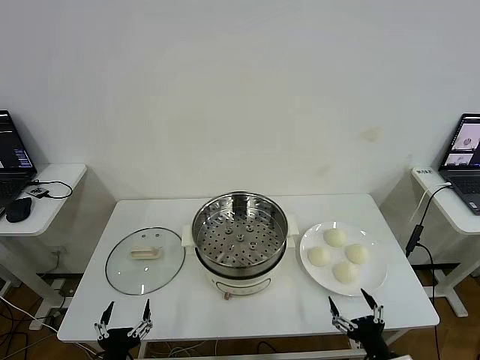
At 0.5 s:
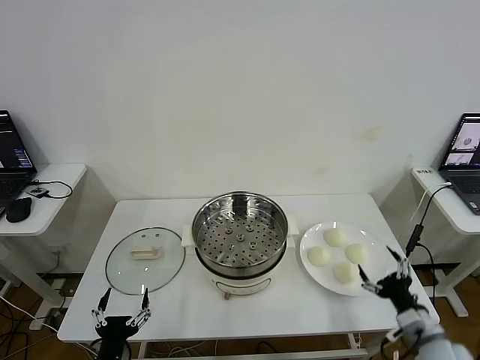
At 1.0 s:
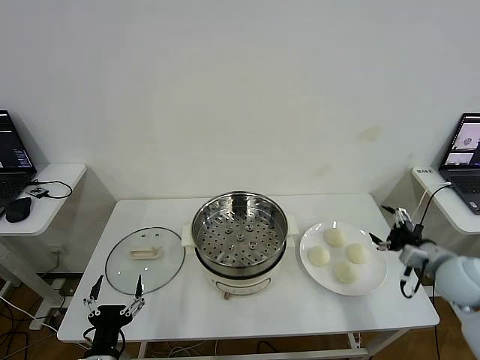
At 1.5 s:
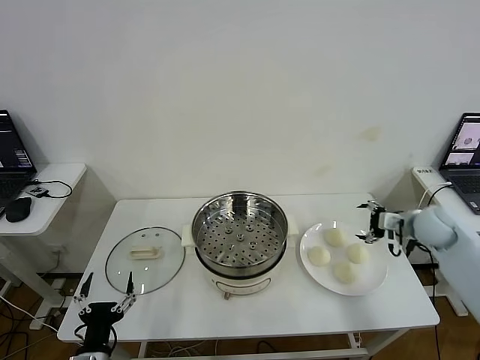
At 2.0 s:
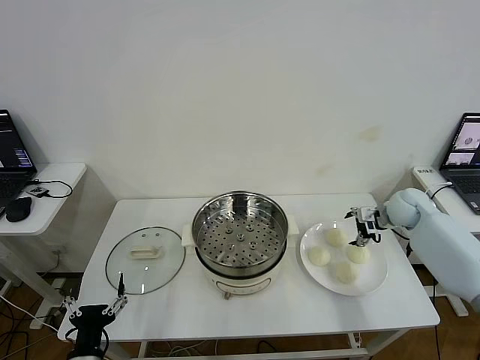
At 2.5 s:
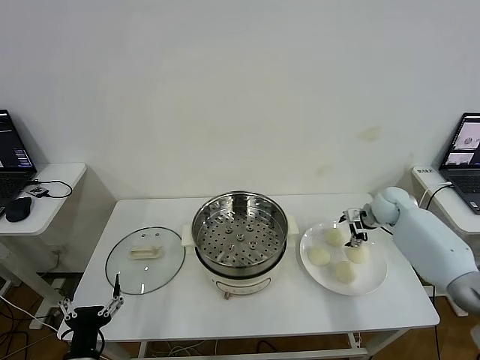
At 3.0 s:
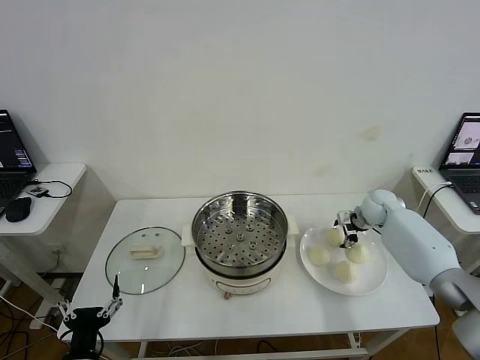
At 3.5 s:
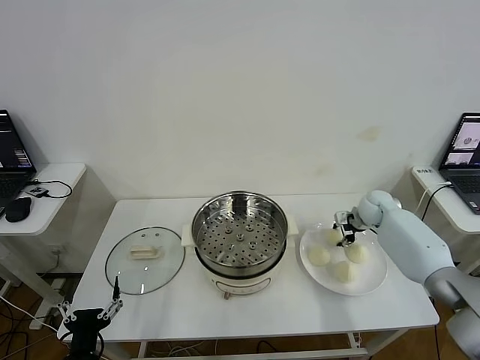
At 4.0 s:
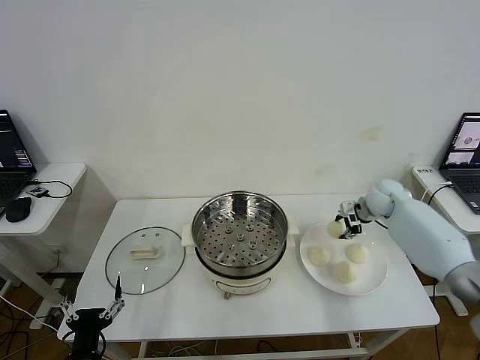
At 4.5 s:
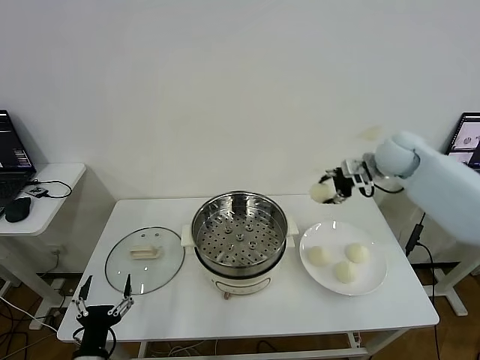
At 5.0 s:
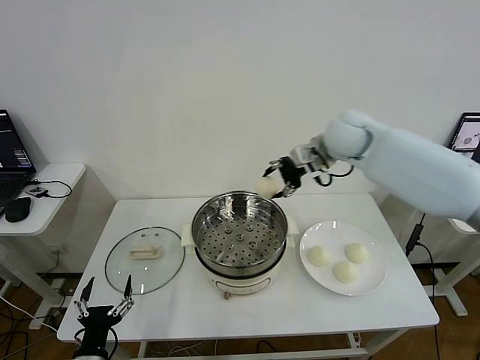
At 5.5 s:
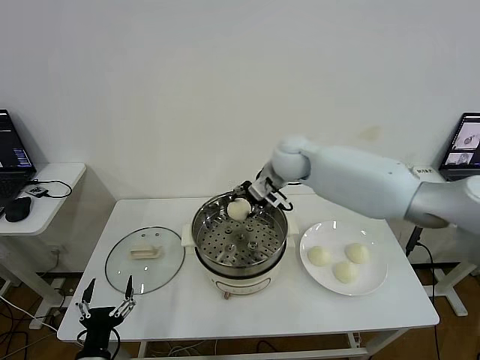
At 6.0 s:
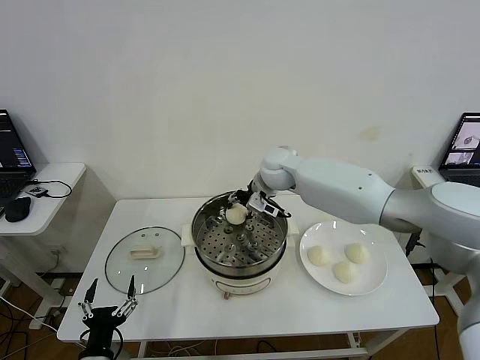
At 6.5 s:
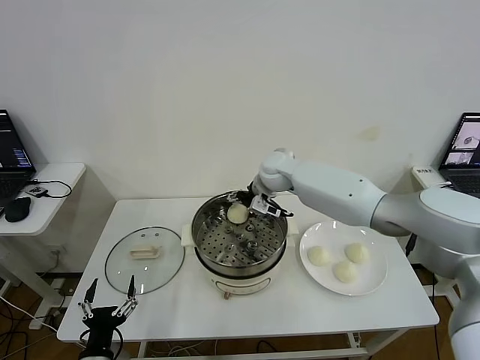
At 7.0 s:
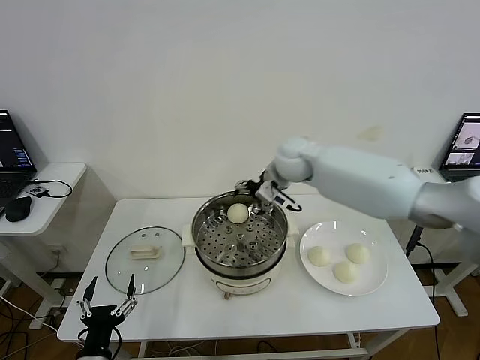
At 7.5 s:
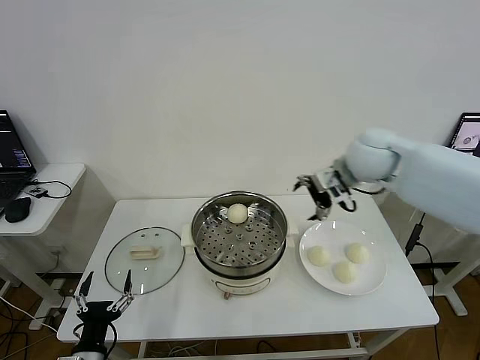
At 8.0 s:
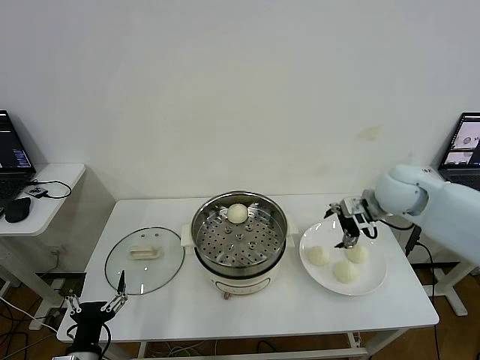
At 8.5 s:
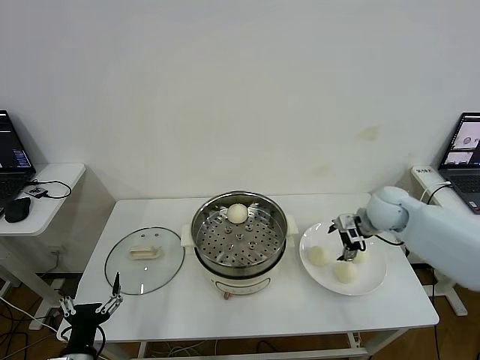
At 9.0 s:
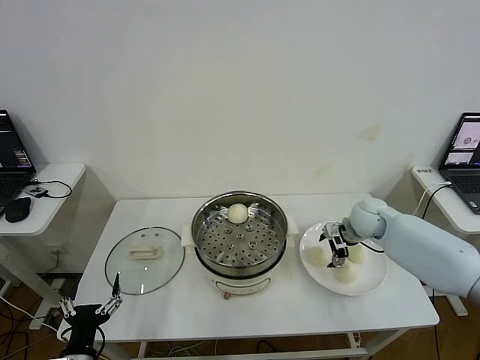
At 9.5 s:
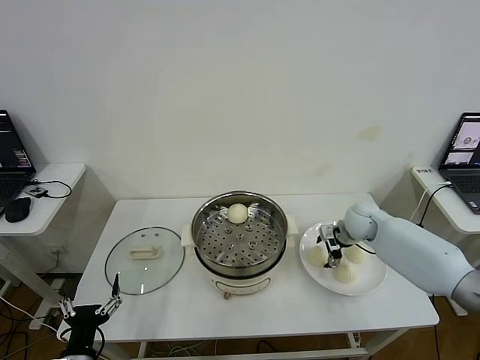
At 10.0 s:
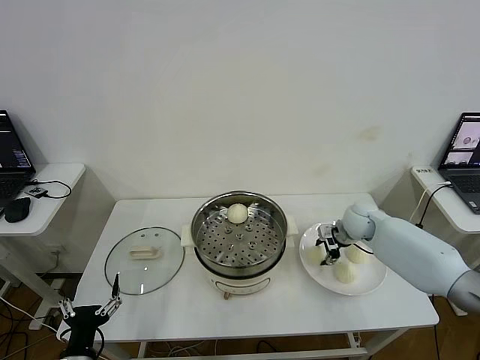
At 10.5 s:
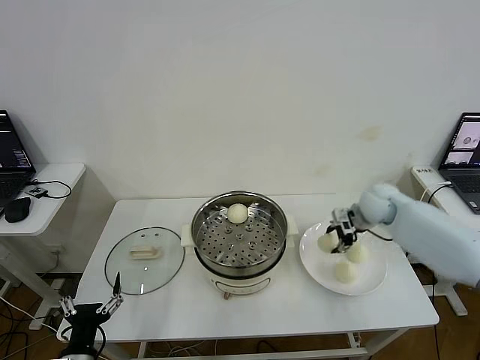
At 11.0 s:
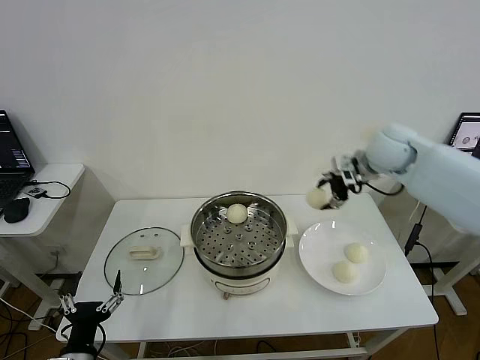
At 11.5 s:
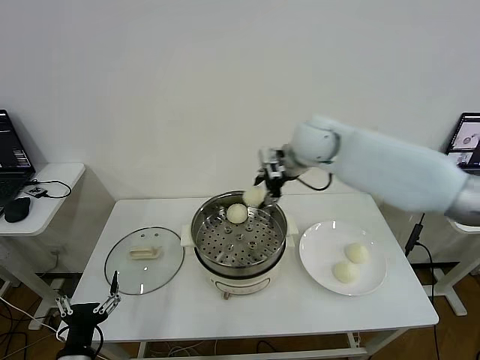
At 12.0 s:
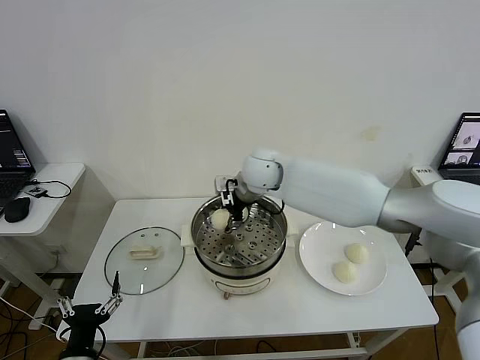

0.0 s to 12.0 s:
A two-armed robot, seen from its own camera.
Step, 0.0 to 3.5 s: Grasp the baozi in the plate with right gripper.
Step, 4.0 to 6.5 s: Place the baozi on the steamer with right gripper.
Step, 7.0 to 10.0 s: Grasp the baozi in the plate with right gripper.
2.0 to 4.0 s: The right gripper ends up about 5 cm from where it was, and closes up.
4.0 to 6.0 s: The right gripper is displaced to the left by about 30 cm.
6.0 to 8.0 s: The right gripper is displaced to the right and backward by approximately 25 cm, and opens up.
8.0 to 10.0 s: The right gripper moves downward, approximately 15 cm, and closes its fingers.
10.0 to 12.0 s: The right gripper is displaced to the left and upward by some 30 cm.

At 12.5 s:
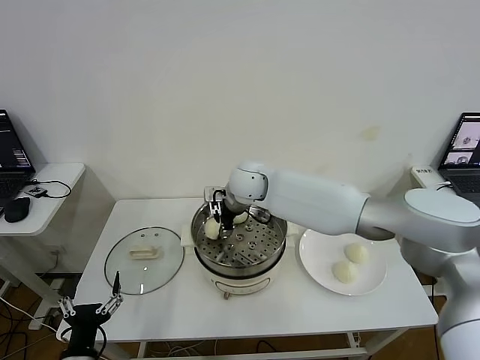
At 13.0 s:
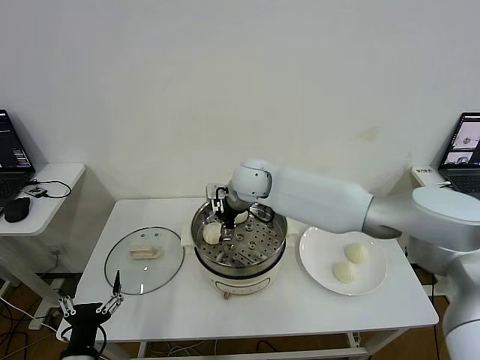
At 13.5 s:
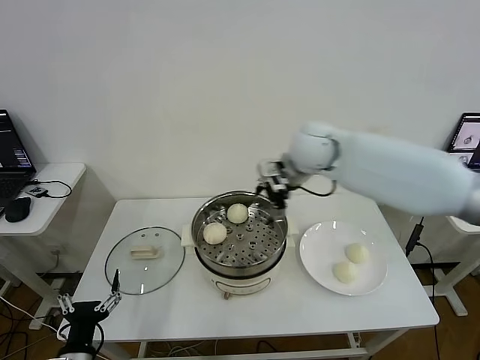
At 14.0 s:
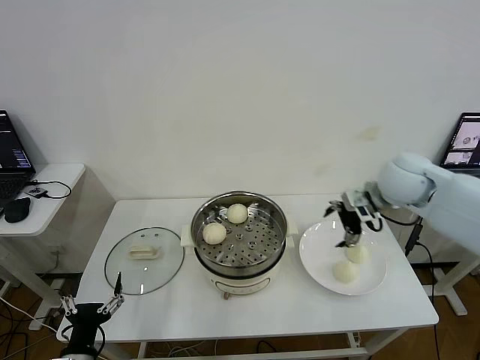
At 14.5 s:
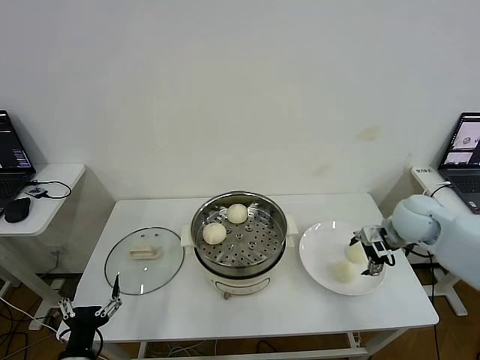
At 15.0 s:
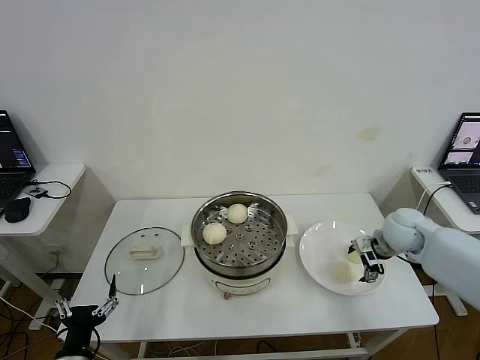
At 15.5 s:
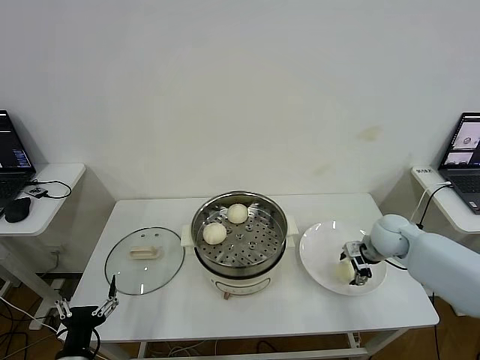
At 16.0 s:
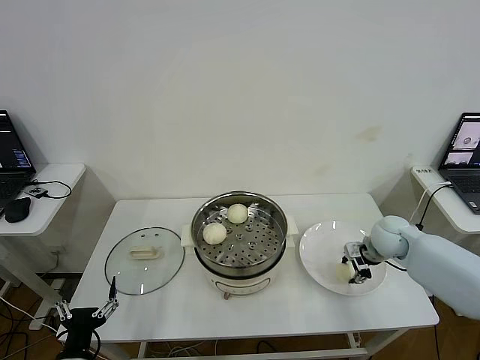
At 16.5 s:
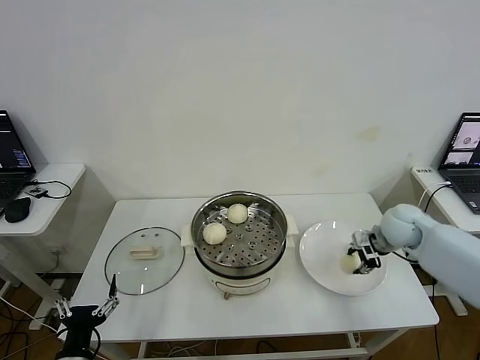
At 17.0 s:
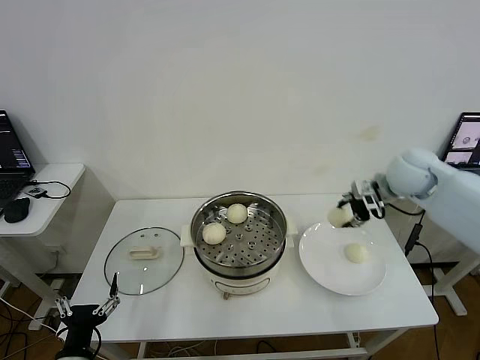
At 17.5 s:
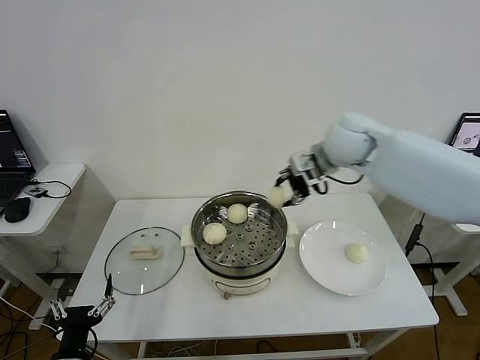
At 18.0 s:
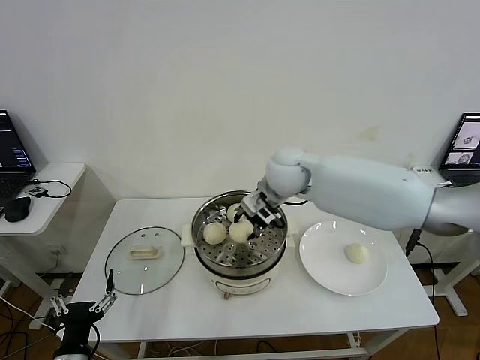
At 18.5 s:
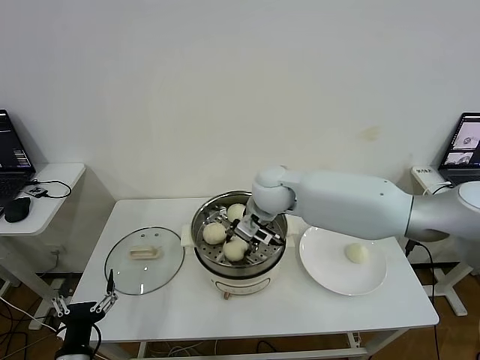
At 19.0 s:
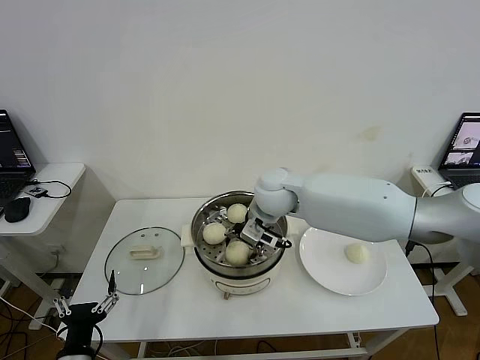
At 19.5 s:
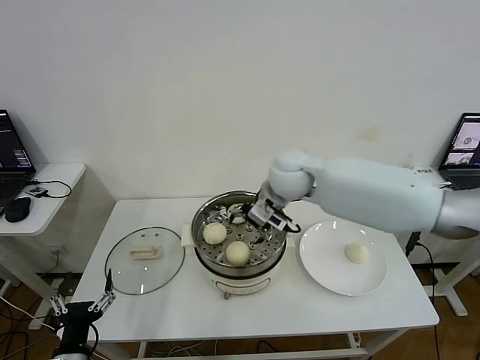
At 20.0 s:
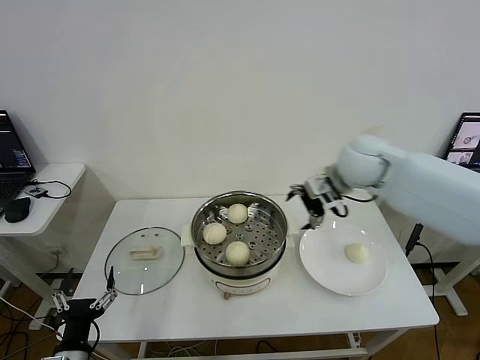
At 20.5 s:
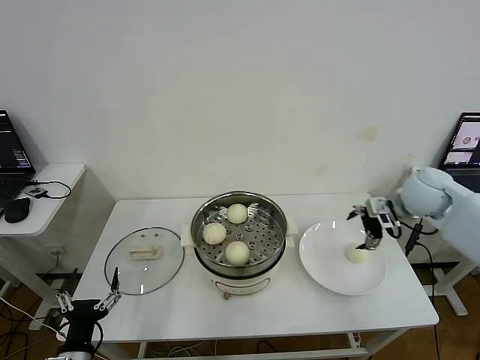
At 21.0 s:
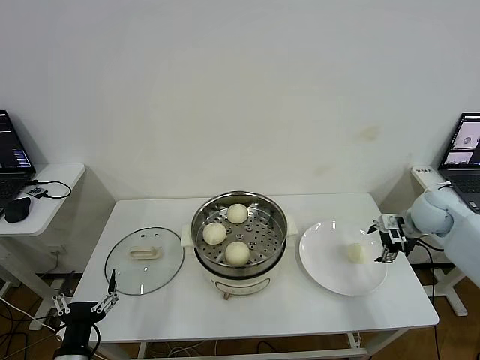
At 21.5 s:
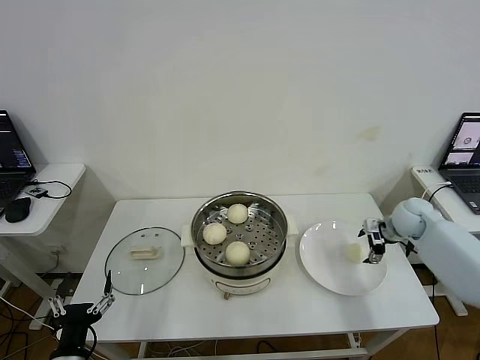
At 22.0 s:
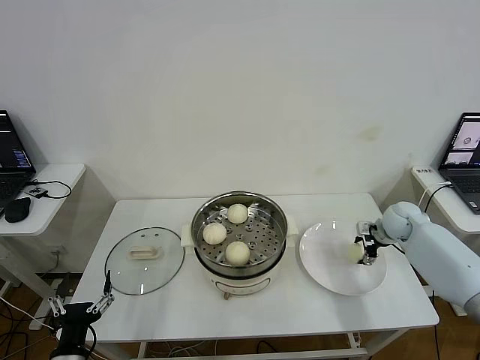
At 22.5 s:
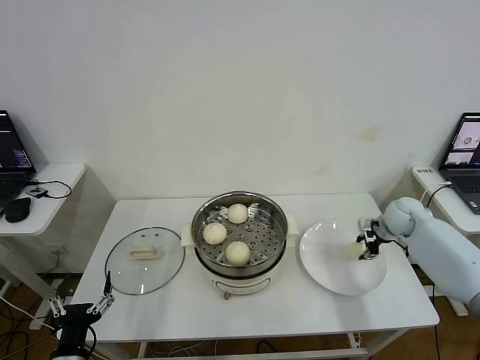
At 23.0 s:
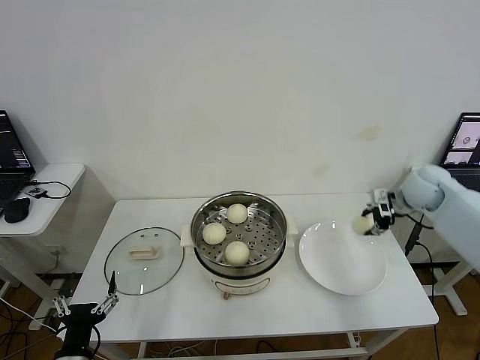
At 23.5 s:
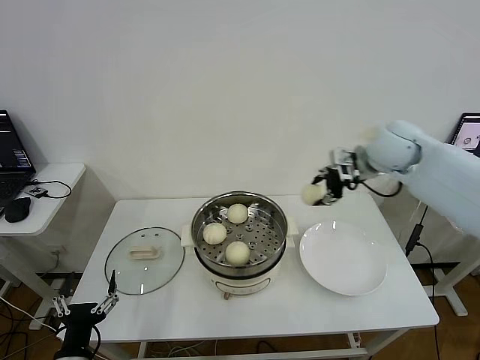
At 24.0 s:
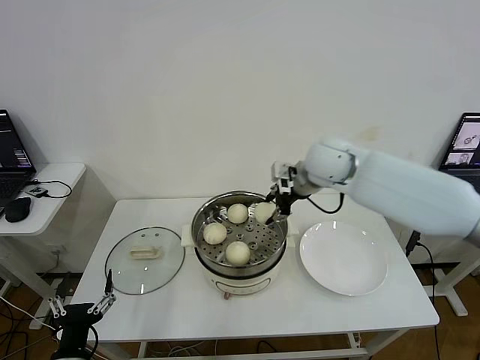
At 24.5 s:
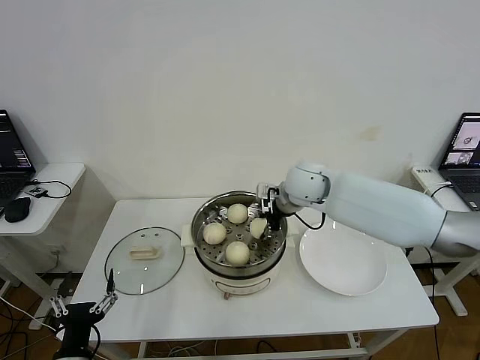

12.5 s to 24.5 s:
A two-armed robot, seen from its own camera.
Step, 13.0 to 16.0 s: Grasp the baozi in the plate with right gripper.
Step, 16.5 to 19.0 s: Place the baozi on the steamer with right gripper.
Step, 19.5 to 22.0 s: Grasp the baozi in the plate with right gripper.
12.5 to 14.5 s: The right gripper moves to the right, roughly 35 cm, and opens its fingers.
14.5 to 16.5 s: The right gripper closes.
16.5 to 18.5 s: The right gripper is displaced to the left by roughly 30 cm.
18.5 to 20.5 s: The right gripper travels to the right by some 30 cm, and opens up.
20.5 to 22.5 s: The right gripper goes approximately 15 cm downward, and closes.
22.5 to 24.5 s: The right gripper goes roughly 30 cm to the left and upward.

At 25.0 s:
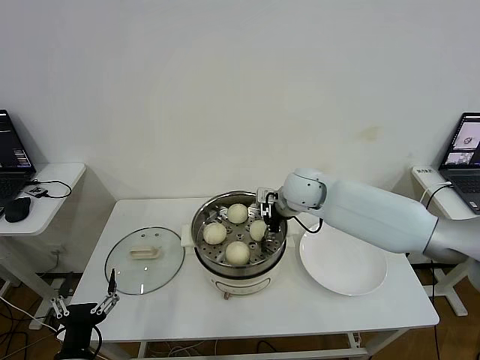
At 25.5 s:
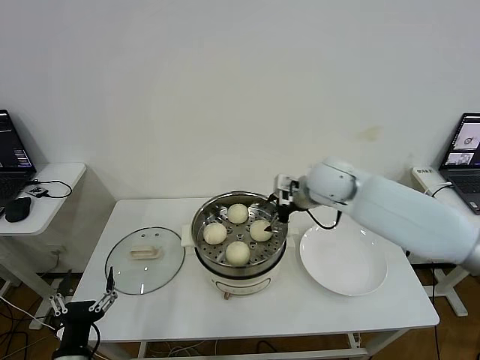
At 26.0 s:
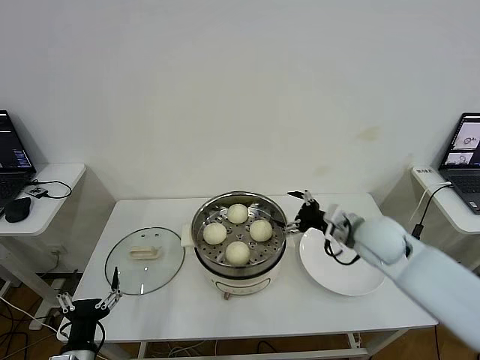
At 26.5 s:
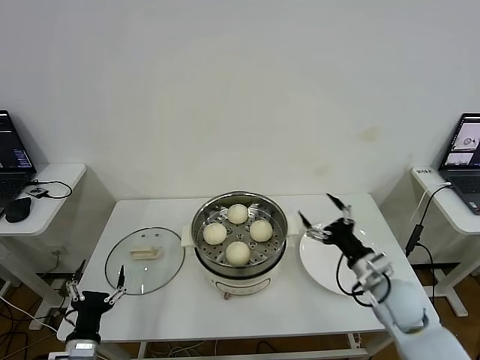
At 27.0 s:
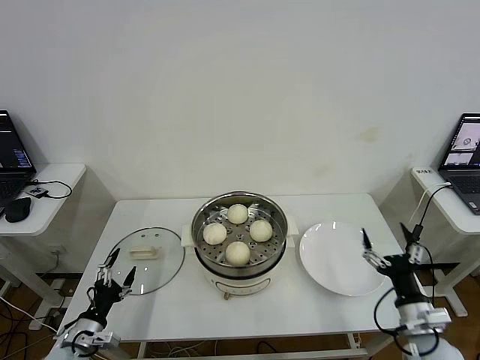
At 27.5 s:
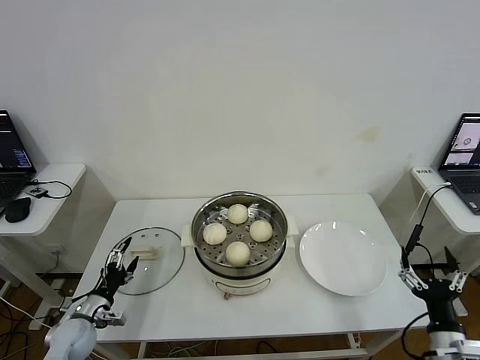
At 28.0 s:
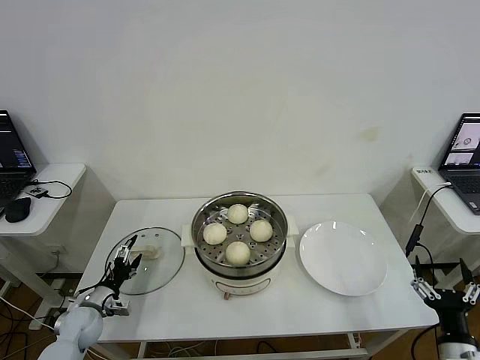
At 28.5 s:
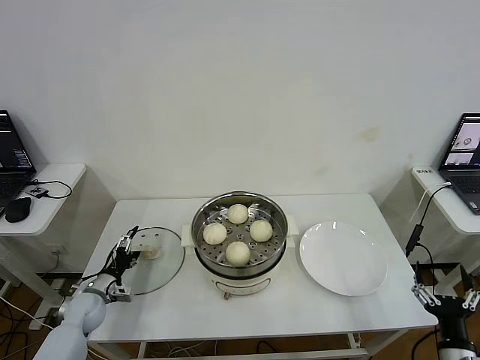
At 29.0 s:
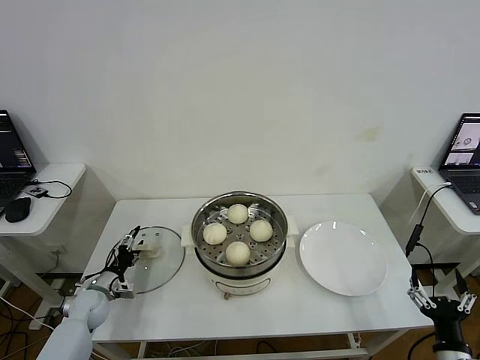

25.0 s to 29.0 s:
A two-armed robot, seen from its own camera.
25.0 to 27.0 s: The right gripper moves backward, to the right and downward, roughly 40 cm, and opens. Meanwhile the left gripper heads forward, to the left and downward, covering approximately 15 cm.
27.0 to 29.0 s: The right gripper moves backward, roughly 10 cm. The left gripper goes approximately 15 cm forward.
